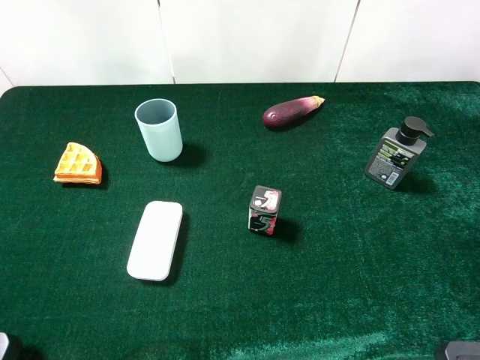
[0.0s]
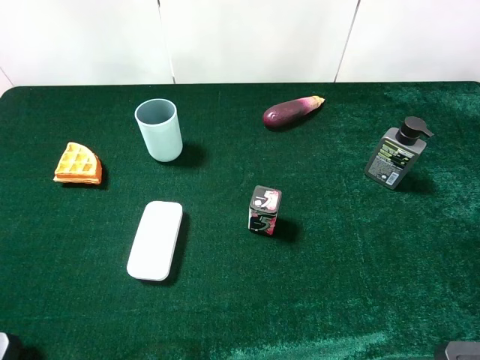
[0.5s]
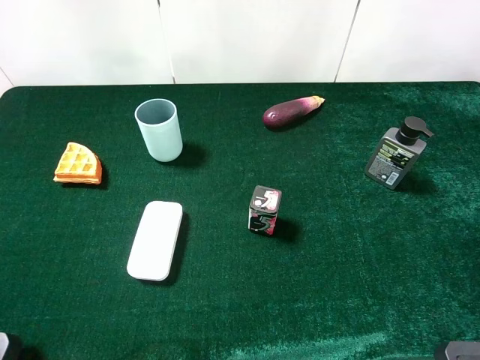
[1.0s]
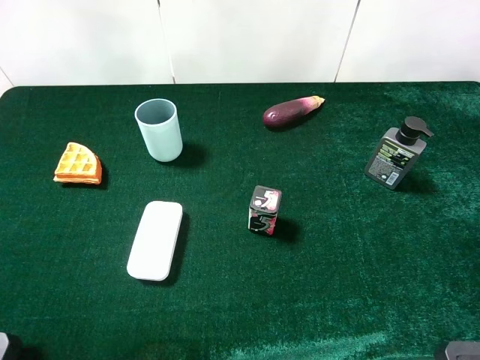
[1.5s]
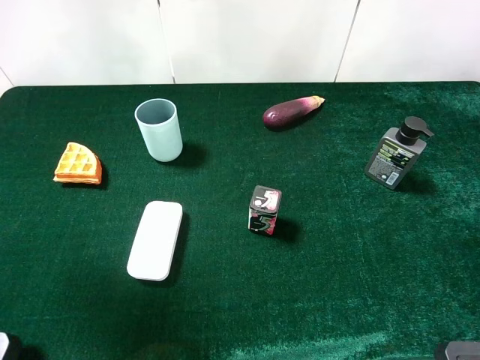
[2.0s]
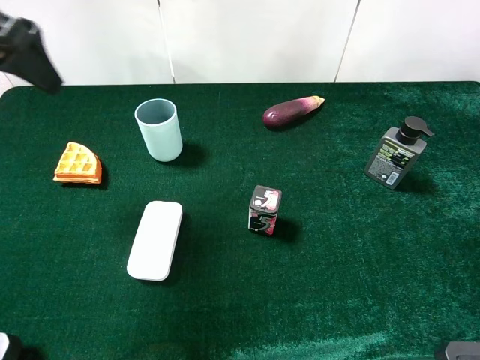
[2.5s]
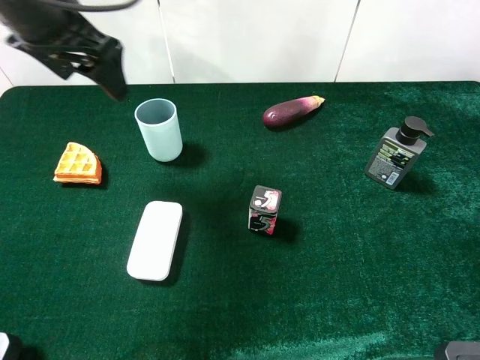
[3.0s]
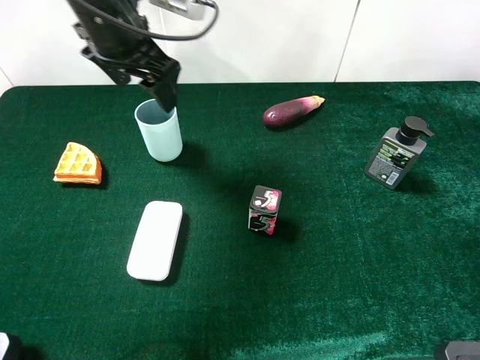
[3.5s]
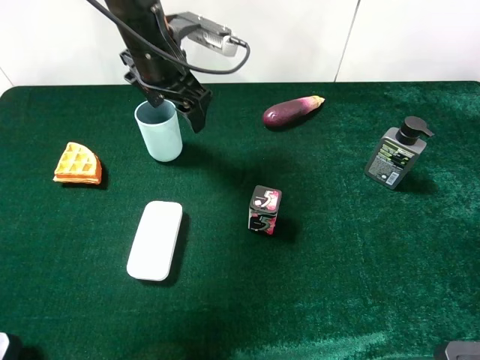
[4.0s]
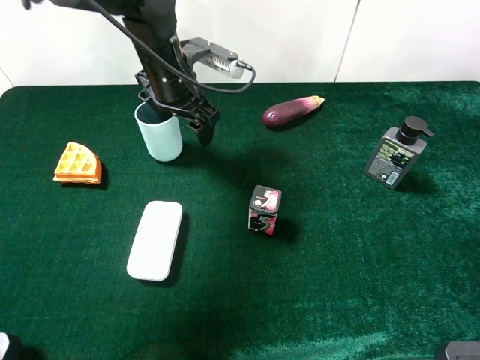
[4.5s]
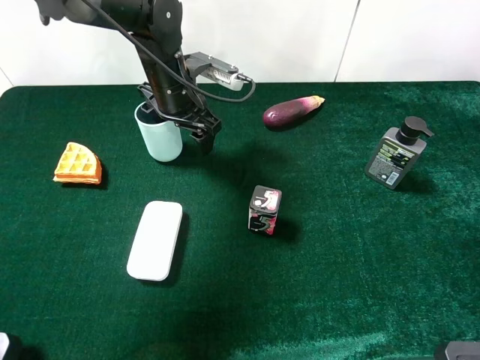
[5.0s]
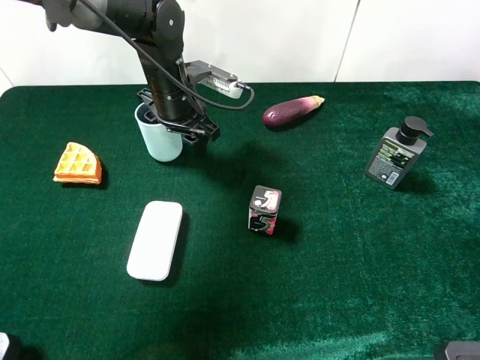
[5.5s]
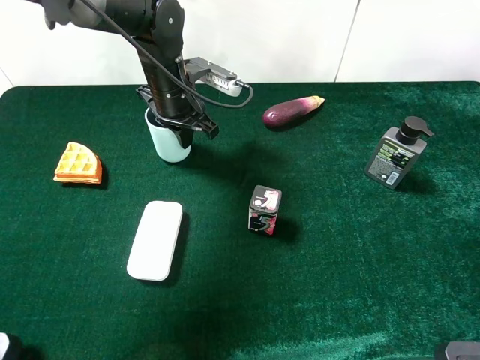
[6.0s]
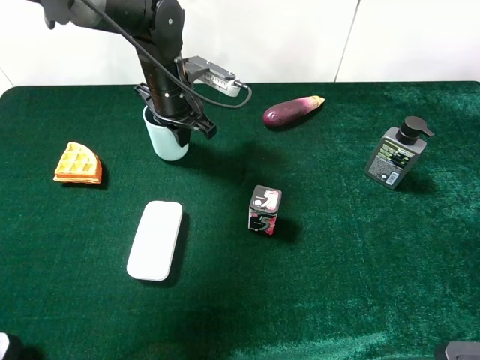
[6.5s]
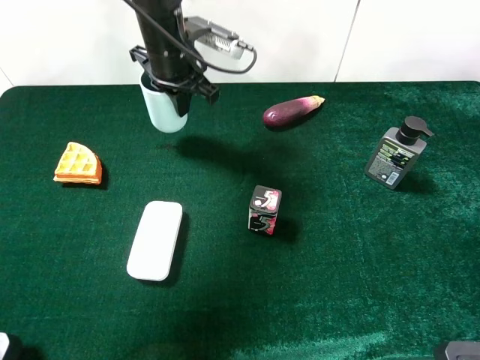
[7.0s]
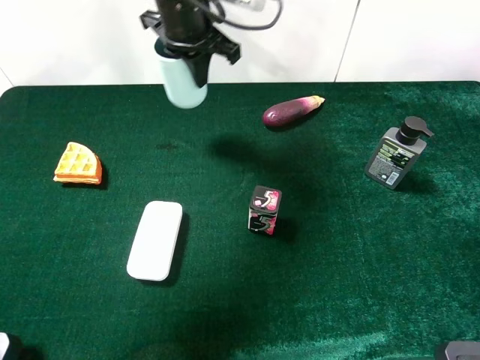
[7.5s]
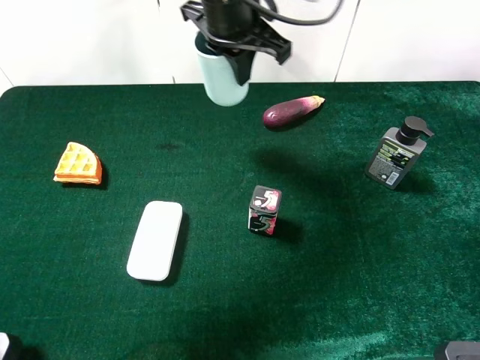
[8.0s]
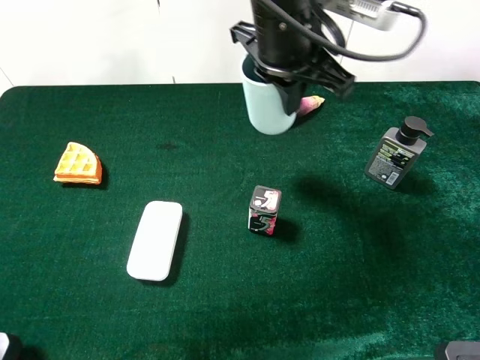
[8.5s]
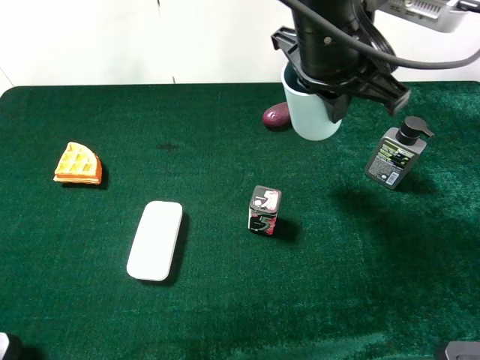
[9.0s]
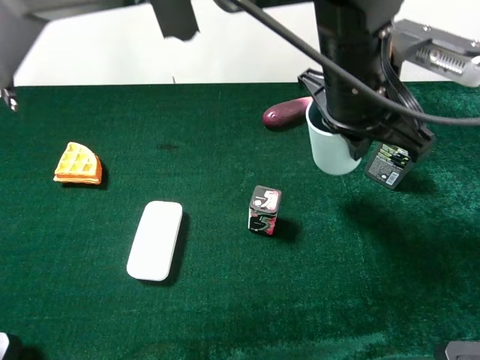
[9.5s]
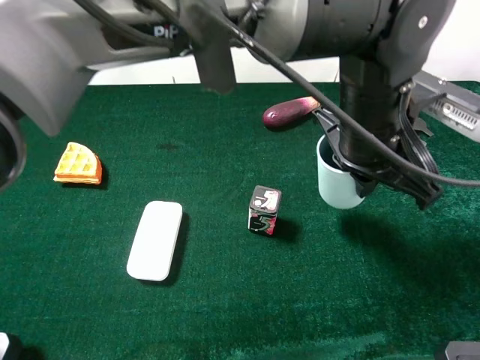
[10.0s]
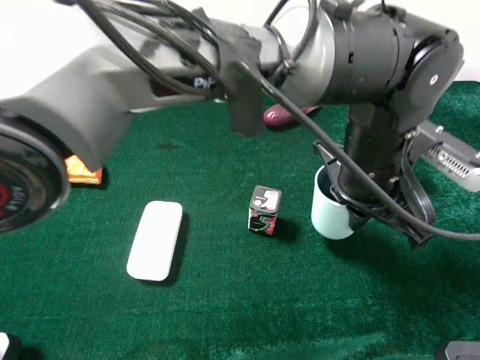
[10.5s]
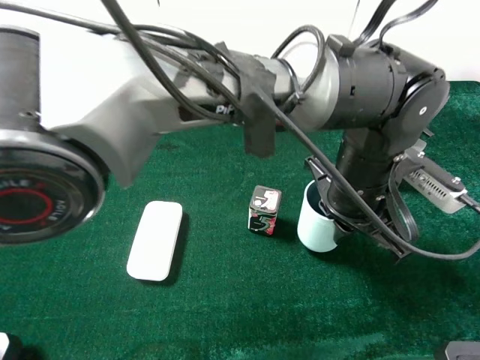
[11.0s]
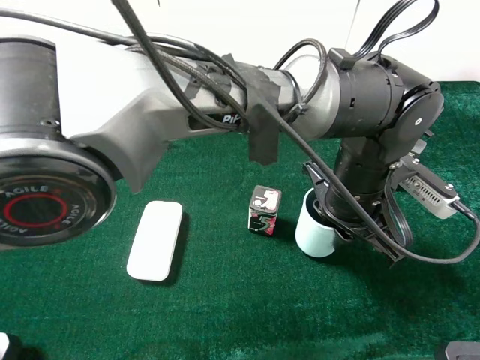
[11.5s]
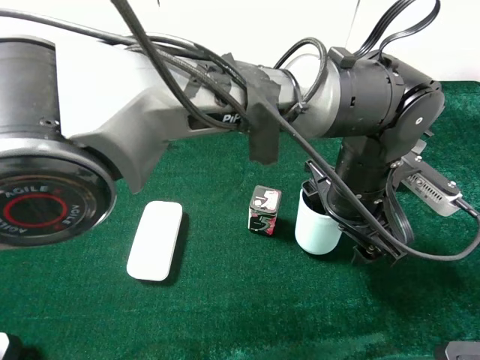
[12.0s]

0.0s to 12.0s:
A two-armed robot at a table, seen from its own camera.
Task of the whole recording: the gripper move the object.
Step, 0.0s to 6.0s: Grasp the cyan cup with the left gripper.
0.0s to 2.0s: The left gripper is displaced forward and upward by some 15 cm.
2.0s to 4.0s: The left gripper moves forward, to the right and downward, some 35 cm.
4.0s to 6.0s: The left gripper goes approximately 5 cm downward, and closes up.
6.0s to 8.0s: The left gripper travels upward and to the right by roughly 15 cm.
8.0s to 10.0s: The left gripper travels to the right, backward and downward by approximately 20 cm.
10.0s to 12.0s: The left gripper travels downward by some 5 cm, and opens up.

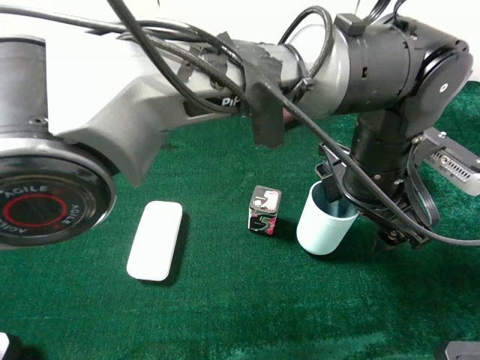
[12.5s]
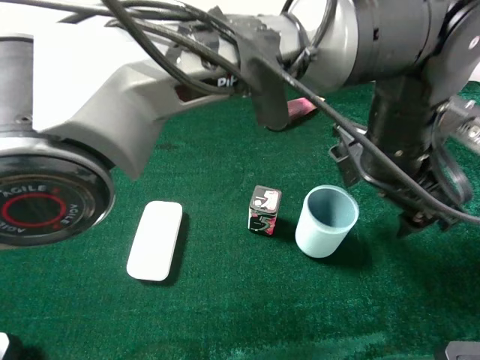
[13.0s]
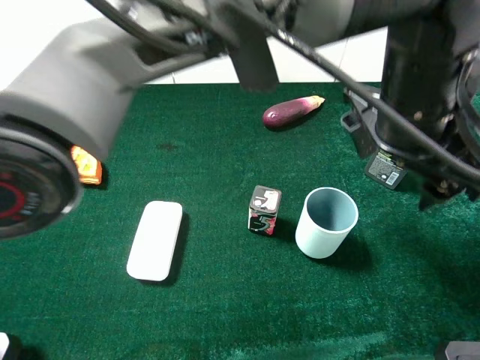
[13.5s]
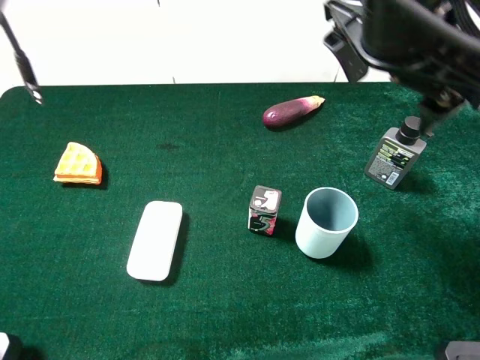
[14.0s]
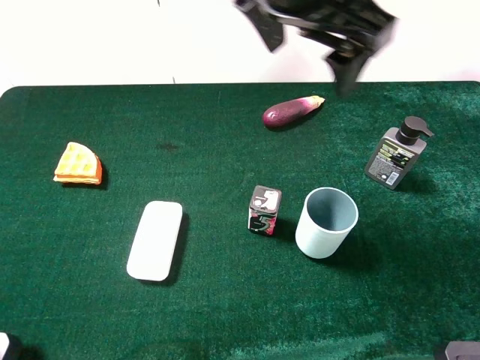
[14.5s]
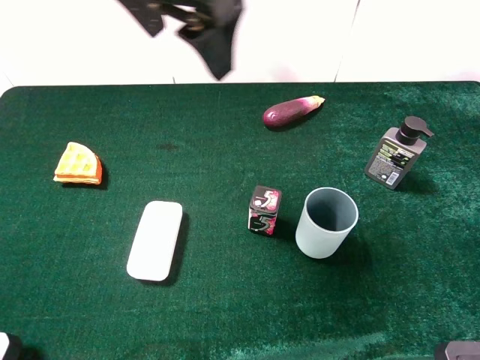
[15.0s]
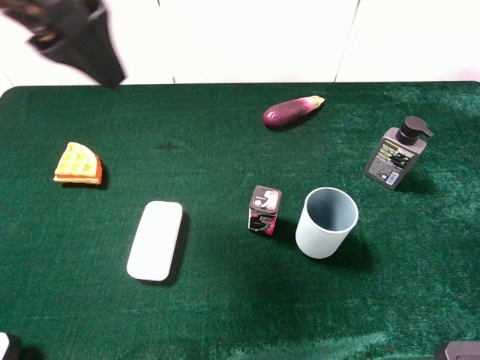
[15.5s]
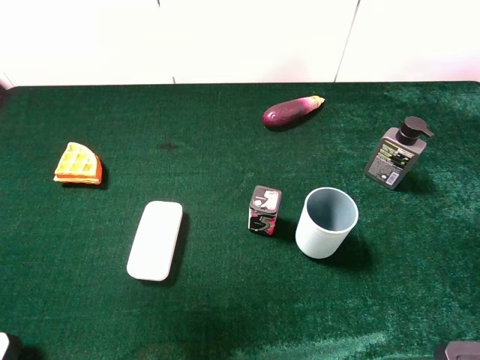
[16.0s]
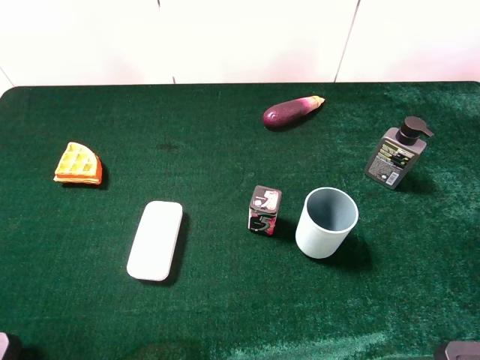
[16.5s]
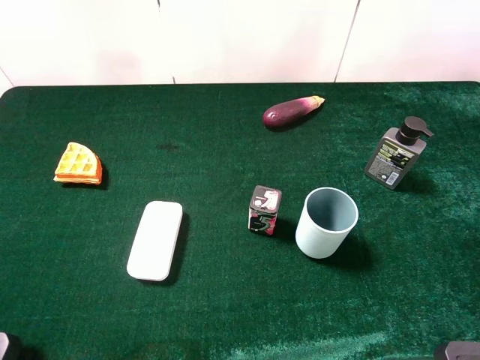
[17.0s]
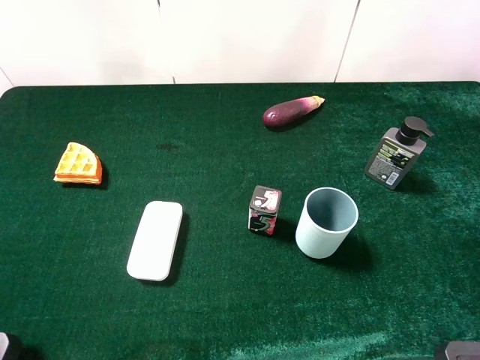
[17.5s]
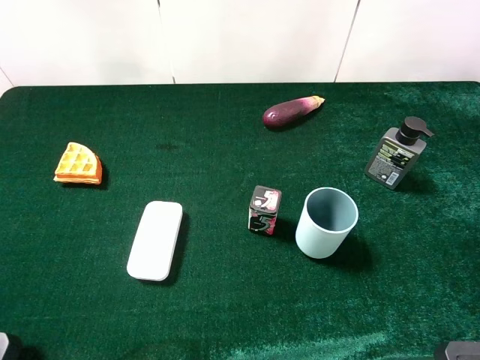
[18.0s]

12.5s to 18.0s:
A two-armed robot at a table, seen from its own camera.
Task of the whole recording: the gripper move the object.
12.5s to 14.5s: The left gripper goes approximately 20 cm upward and to the left.
14.5s to 16.0s: The left gripper shifts some 30 cm to the left and backward.
16.0s to 18.0s: The left gripper travels backward, downward and to the left by approximately 20 cm.

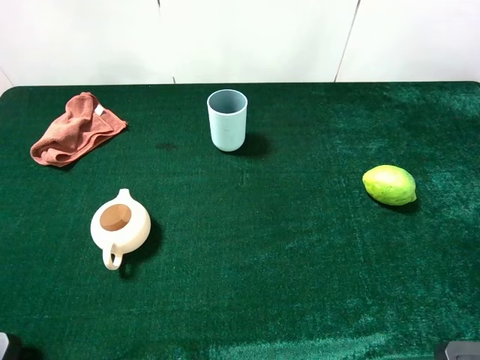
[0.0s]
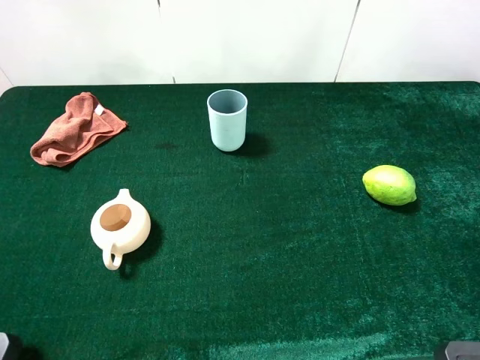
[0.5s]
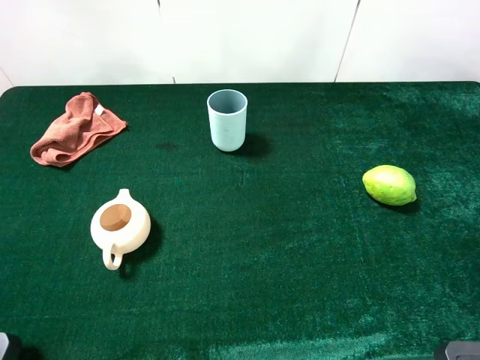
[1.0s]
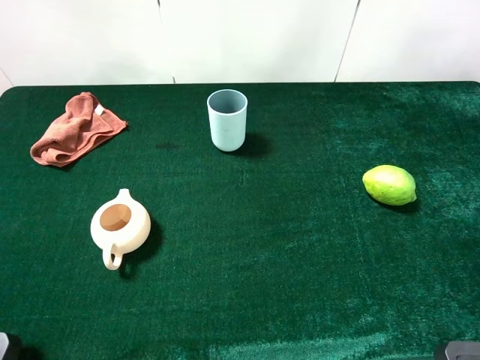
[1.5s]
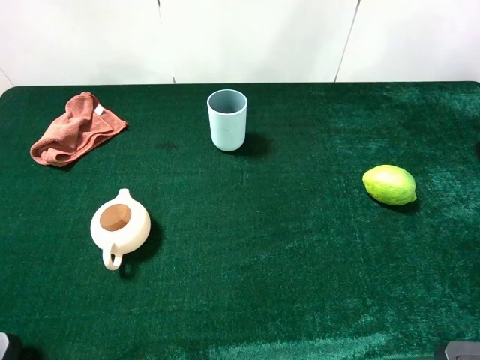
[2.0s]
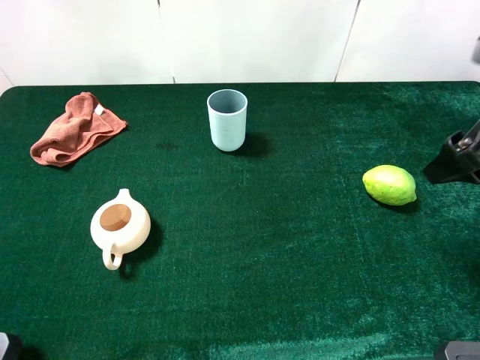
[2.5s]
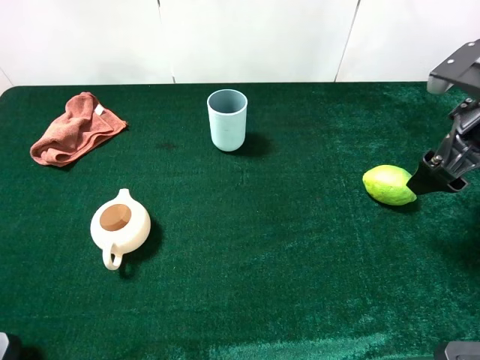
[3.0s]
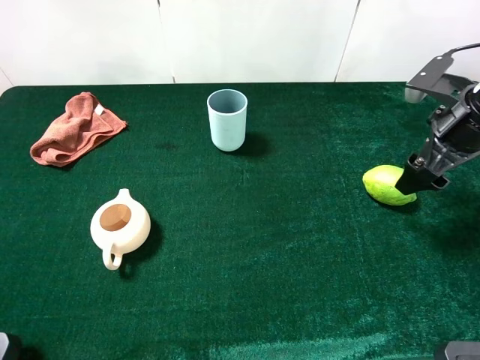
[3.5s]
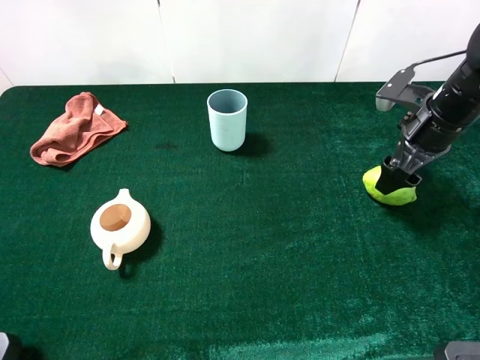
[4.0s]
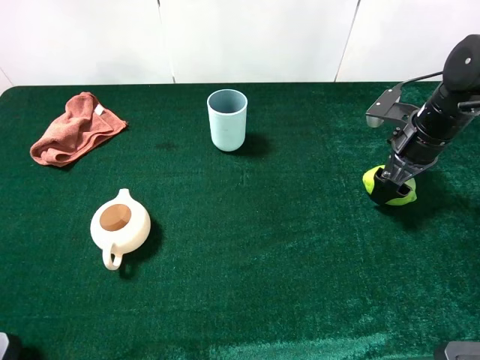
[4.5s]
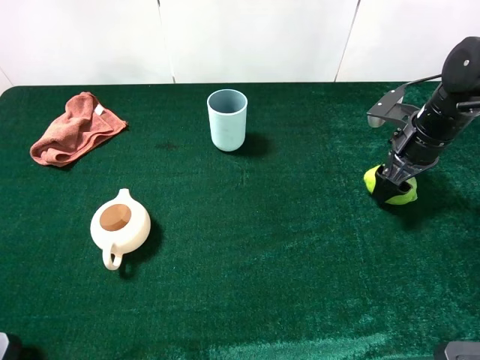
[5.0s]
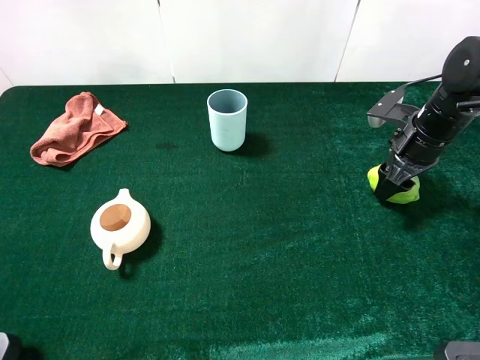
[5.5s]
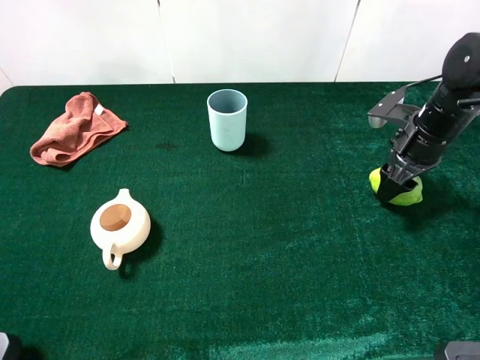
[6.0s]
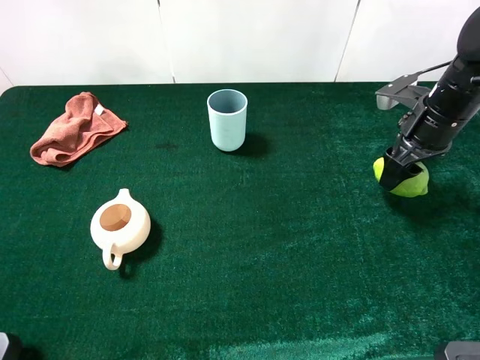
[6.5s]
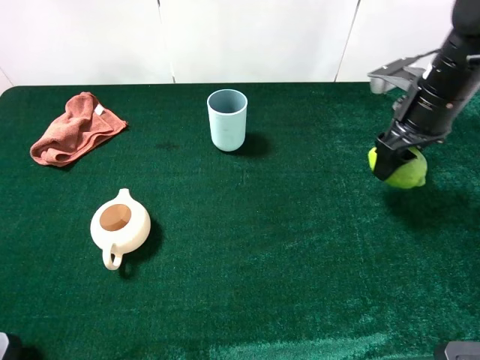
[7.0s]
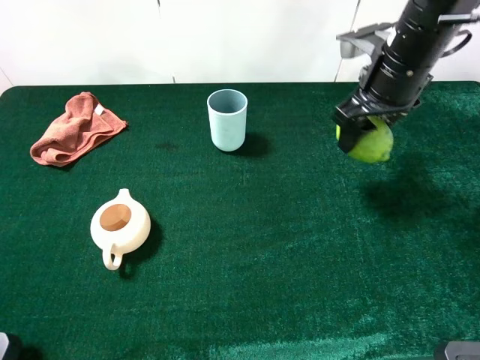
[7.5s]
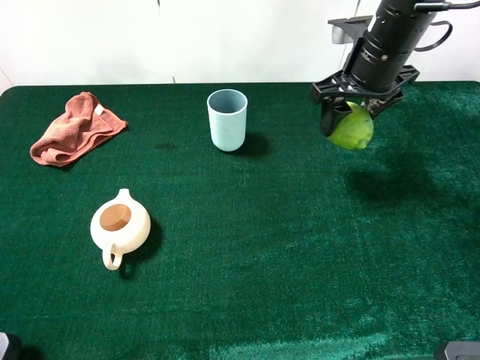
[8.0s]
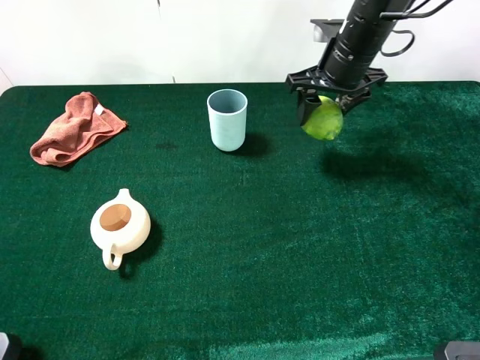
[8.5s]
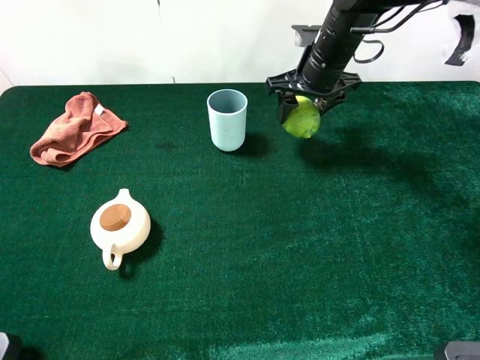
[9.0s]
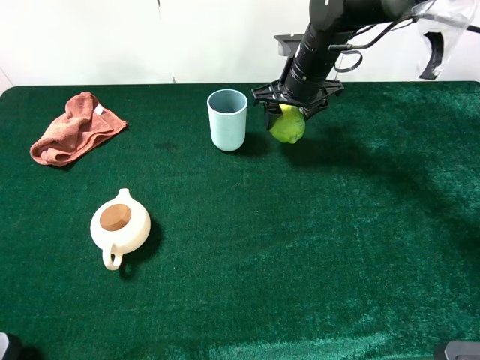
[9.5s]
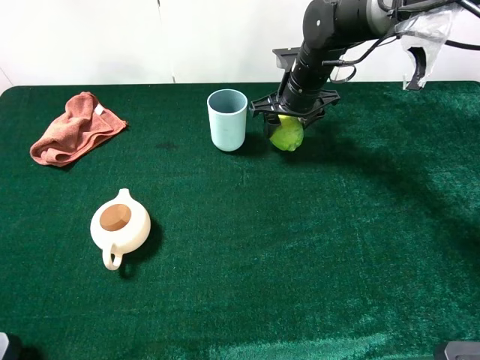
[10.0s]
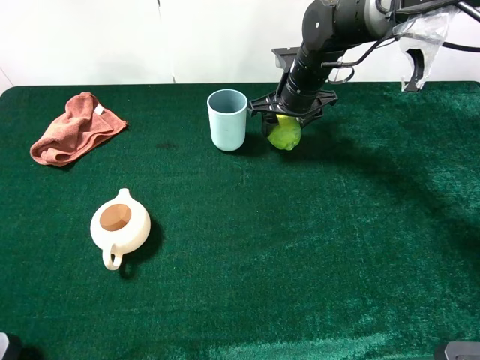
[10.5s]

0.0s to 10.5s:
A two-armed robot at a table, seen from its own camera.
Task of the whole recording: the gripper move the object.
Step, 0.0s to 5.5s: Grasp the green lemon with the right gripper.
2.0s to 4.0s: The right gripper shifts some 20 cm forward and downward.
4.0s to 6.5s: The right gripper closes its fingers.
6.5s to 8.5s: The right gripper goes roughly 15 cm to the left and forward.
8.5s to 10.5s: The right gripper is displaced downward by about 5 cm.
